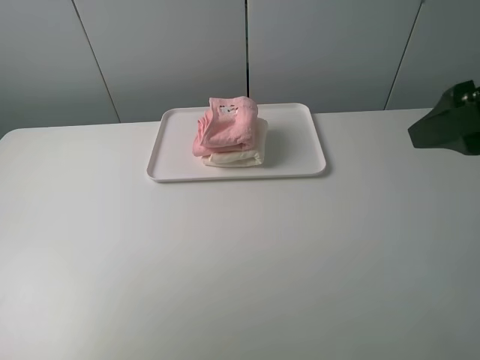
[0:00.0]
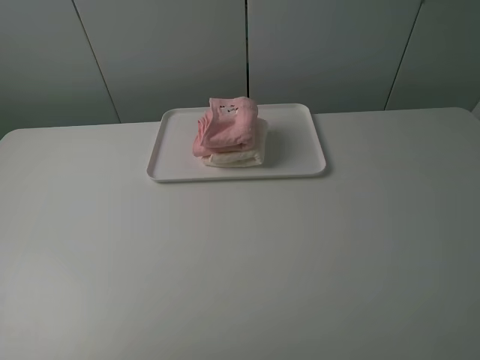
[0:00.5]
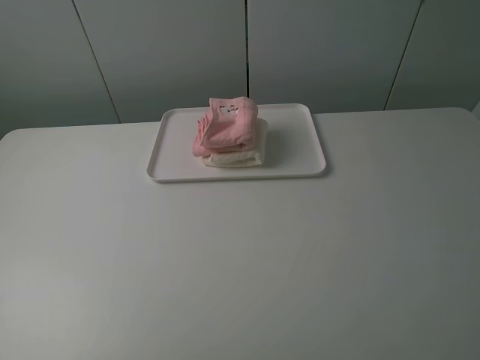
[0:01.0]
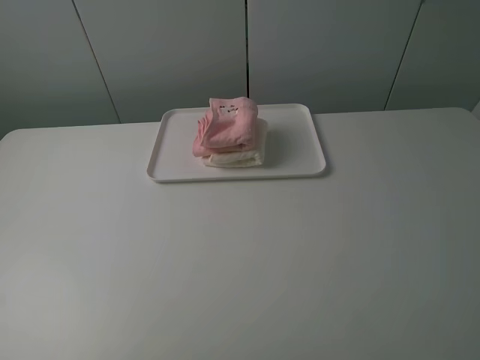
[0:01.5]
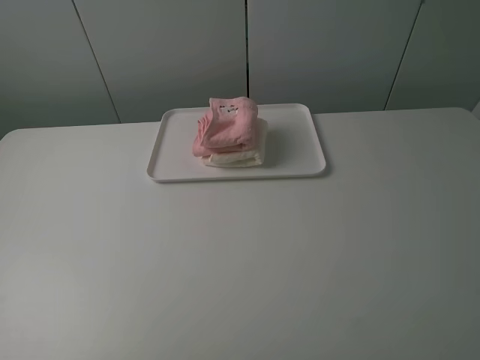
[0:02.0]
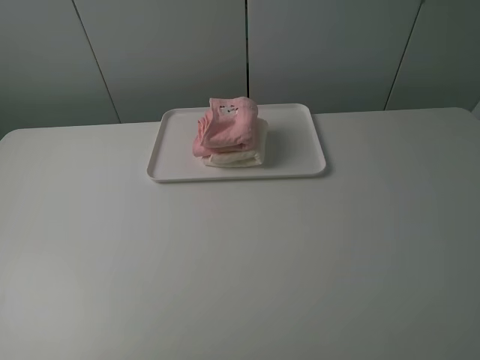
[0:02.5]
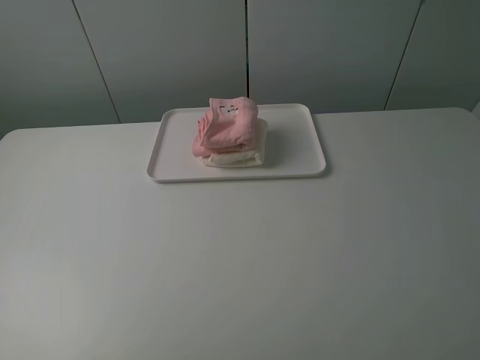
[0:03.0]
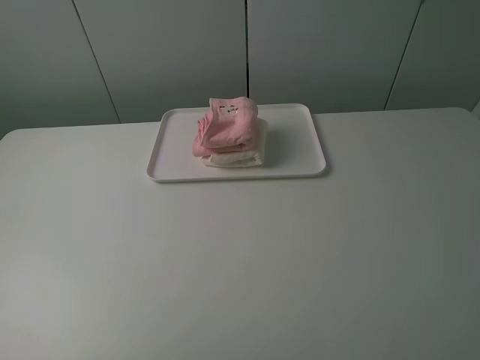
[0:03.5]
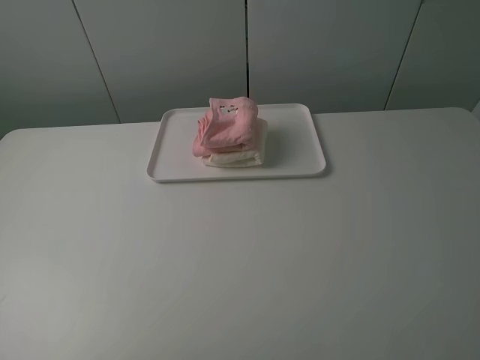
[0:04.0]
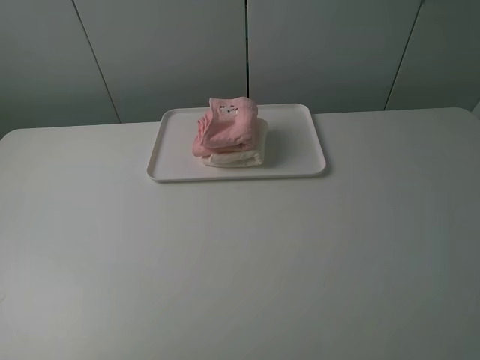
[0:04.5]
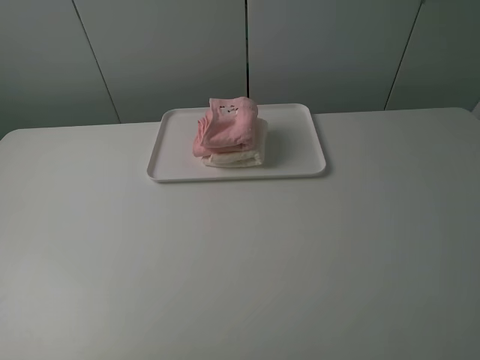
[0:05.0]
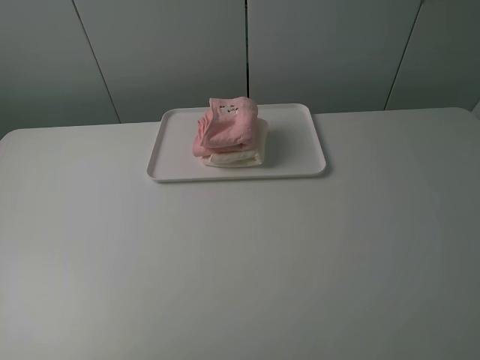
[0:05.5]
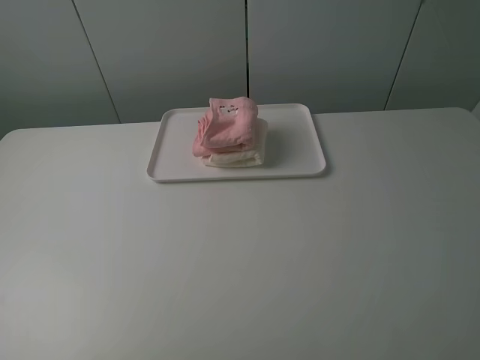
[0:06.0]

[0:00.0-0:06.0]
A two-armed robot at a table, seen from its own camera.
Task of the whole recording: fold one of the towels by two grippers and place it on the tray,then fold another towel by two grippers and place it on the folded towel.
0:00.0 to 0:02.0: The two grippers go roughly 15 cm backward.
0:04.0 to 0:06.0: Both grippers stay about where they are.
